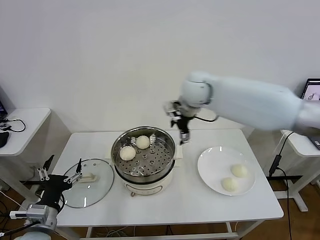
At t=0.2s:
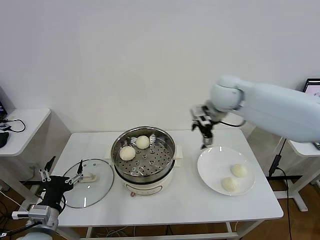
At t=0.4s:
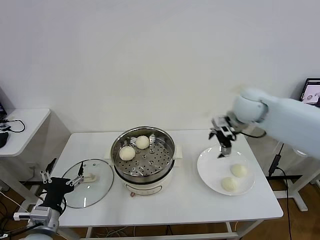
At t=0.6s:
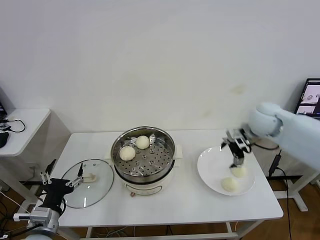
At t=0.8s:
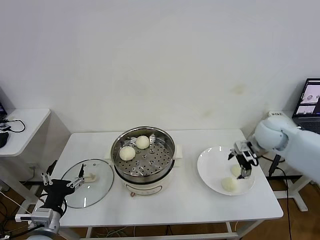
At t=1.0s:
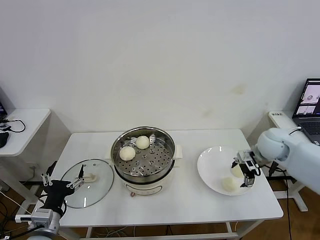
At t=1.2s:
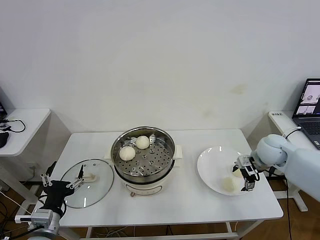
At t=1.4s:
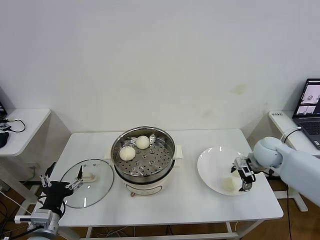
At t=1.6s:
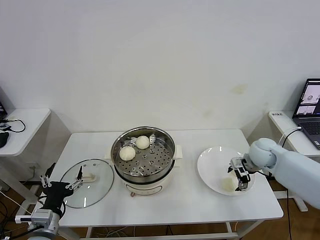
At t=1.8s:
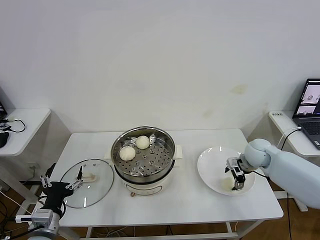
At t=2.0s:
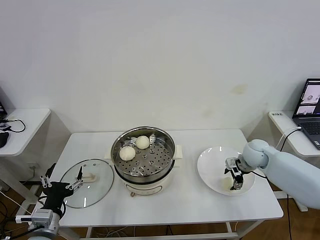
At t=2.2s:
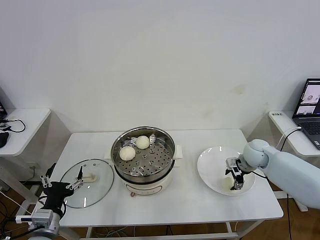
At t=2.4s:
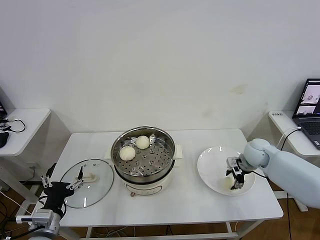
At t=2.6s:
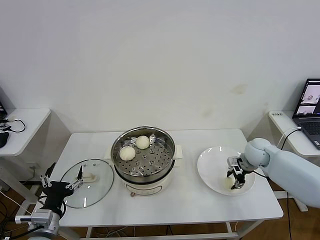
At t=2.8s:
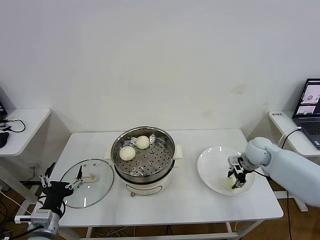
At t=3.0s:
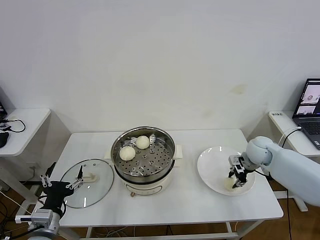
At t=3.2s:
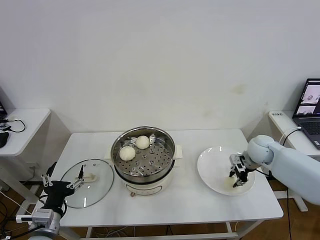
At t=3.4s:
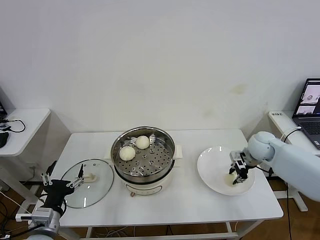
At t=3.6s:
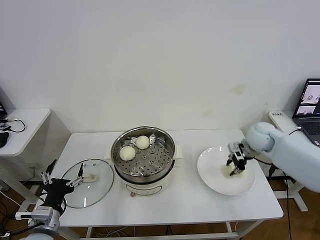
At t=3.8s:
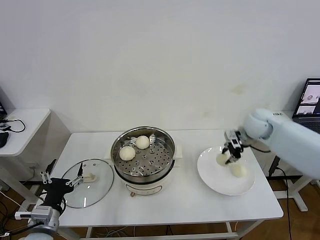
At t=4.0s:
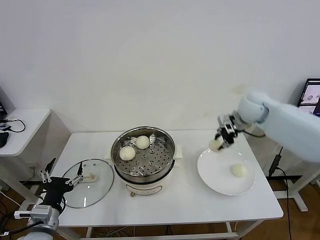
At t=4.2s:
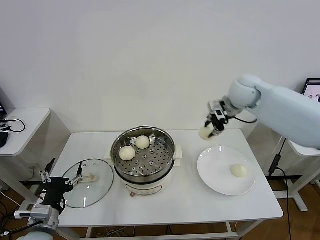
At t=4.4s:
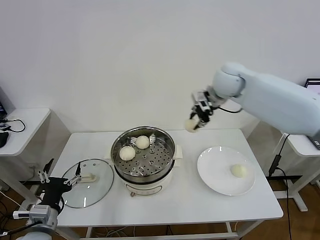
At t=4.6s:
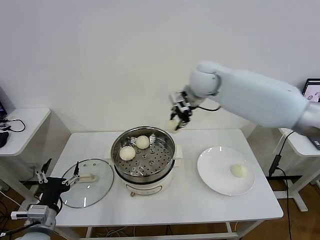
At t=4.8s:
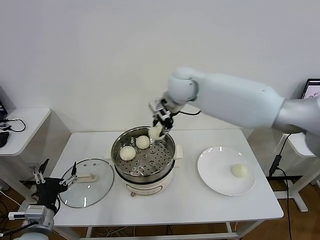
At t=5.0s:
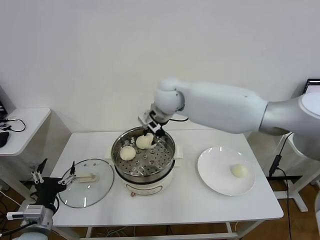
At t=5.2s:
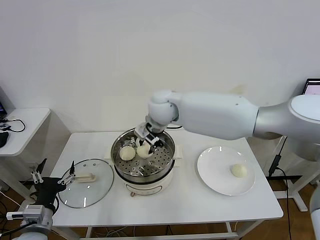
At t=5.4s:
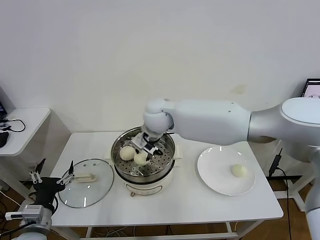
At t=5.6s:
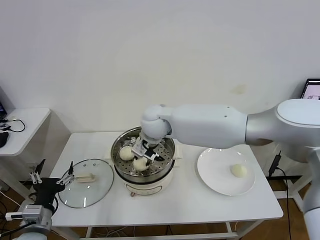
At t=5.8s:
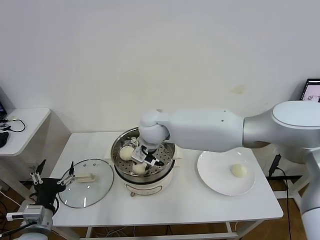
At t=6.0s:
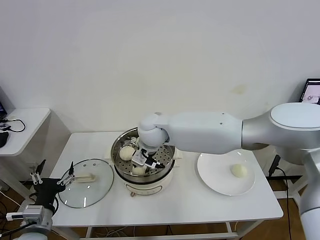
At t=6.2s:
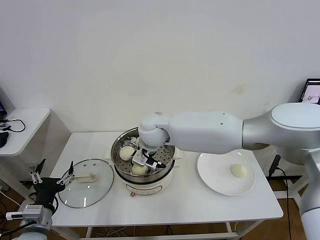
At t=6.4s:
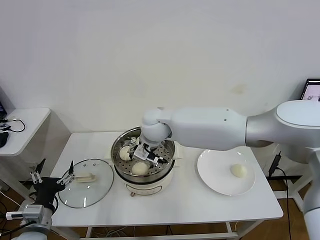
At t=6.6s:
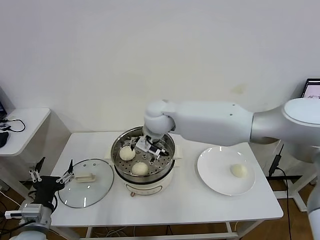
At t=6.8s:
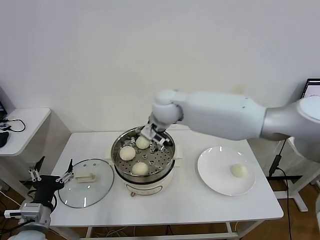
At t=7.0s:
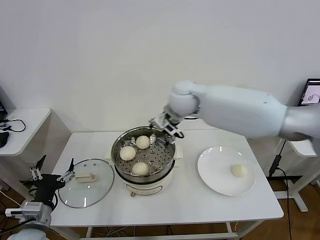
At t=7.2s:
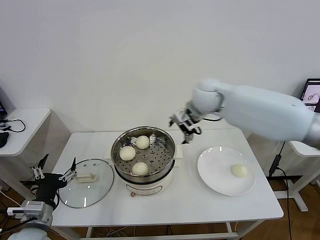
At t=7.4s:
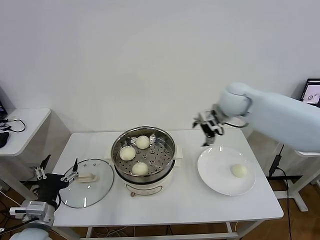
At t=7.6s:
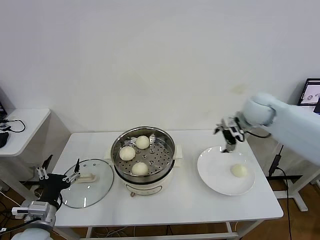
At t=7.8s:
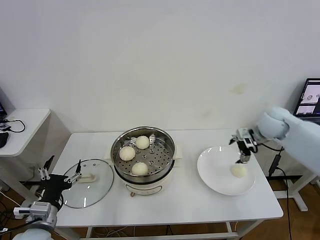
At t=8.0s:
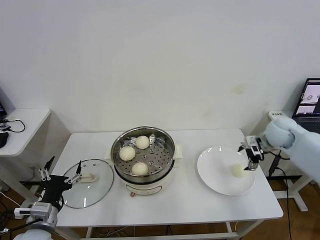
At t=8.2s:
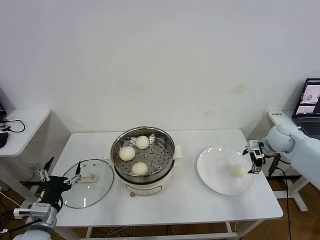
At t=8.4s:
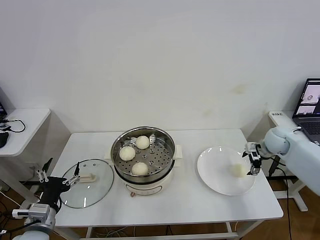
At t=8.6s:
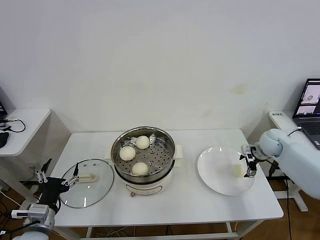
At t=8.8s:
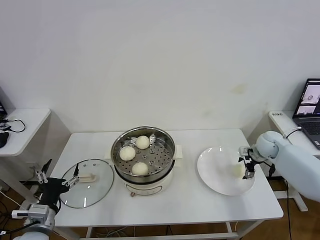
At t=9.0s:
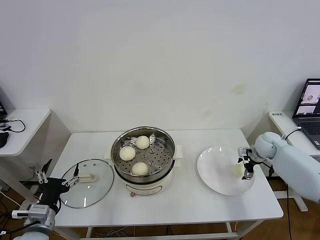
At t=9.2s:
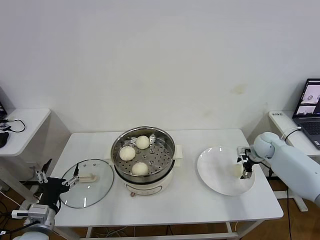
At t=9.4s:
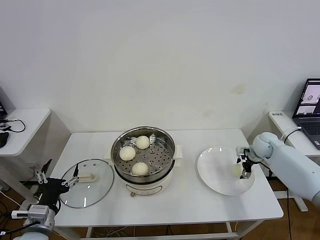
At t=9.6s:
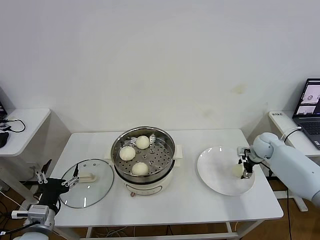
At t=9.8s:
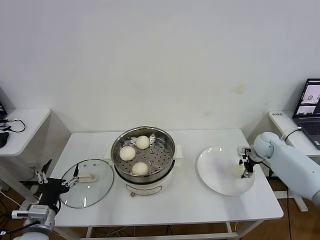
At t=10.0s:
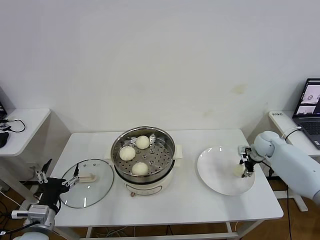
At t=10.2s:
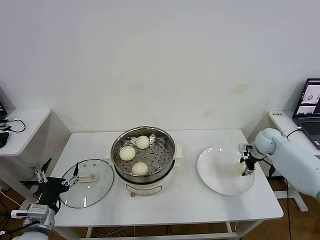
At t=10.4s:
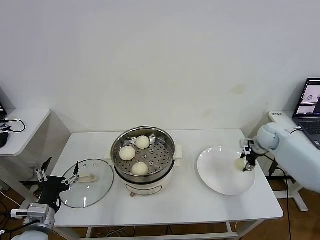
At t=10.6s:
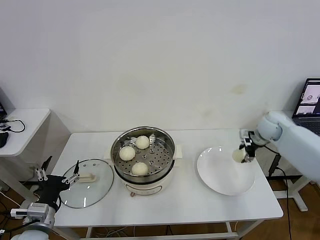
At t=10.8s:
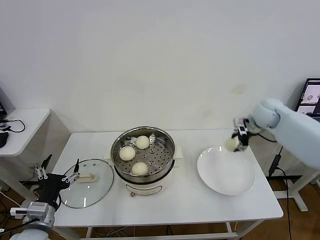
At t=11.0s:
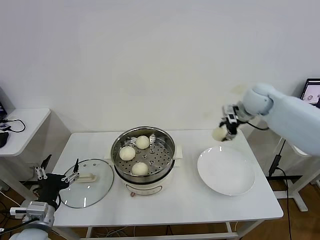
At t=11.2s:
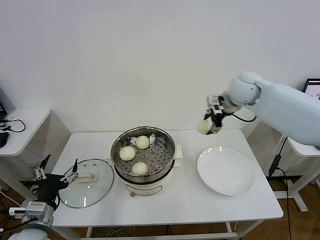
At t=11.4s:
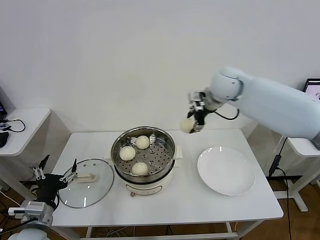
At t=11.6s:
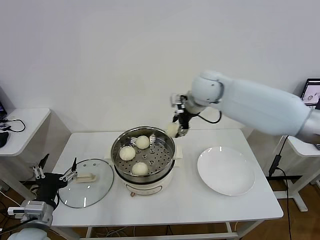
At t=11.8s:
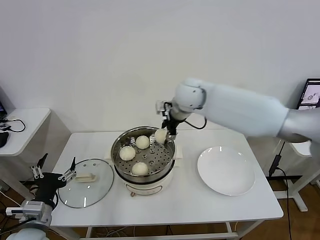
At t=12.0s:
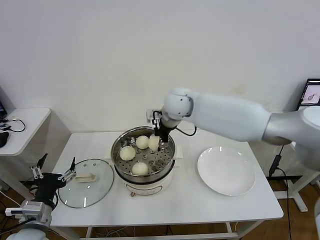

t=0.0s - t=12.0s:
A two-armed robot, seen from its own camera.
Task of the whole recording: take steamed baozi put them in steamer then cover it.
Step, t=0.0s - t=3.0s: Grasp the baozi in the plate with right gripper.
Step, t=3.2s - t=6.2s: Place the baozi on the steamer with right gripper.
Step, t=6.6s - t=9.8s: Grasp the baozi in the plate with right gripper.
t=0.0s - t=1.6s: The right gripper is displaced to the right and downward by approximately 35 cm.
t=1.6s - t=3.0s: The right gripper closes.
t=3.0s - t=4.4s: The right gripper travels upward and to the left by approximately 30 cm.
t=4.4s - t=6.0s: The right gripper moves to the left and downward, some 25 cm.
t=6.0s - t=7.6s: The right gripper goes some 30 cm to the right, and opens.
t=7.6s - t=9.0s: The right gripper heads downward and to the right, covering approximately 20 cm.
t=9.0s - t=10.4s: The right gripper closes its fingers.
t=10.4s - t=12.0s: The right gripper is displaced to the left and upward by some 40 cm.

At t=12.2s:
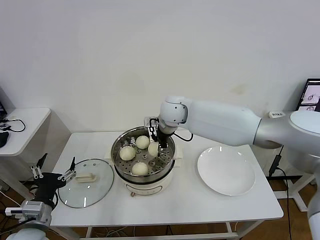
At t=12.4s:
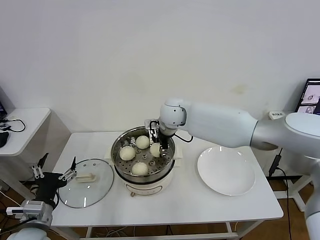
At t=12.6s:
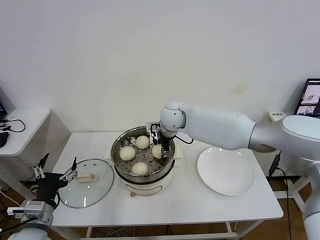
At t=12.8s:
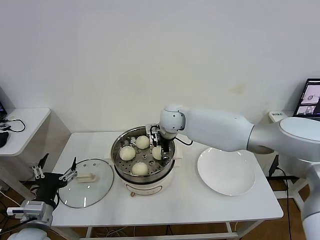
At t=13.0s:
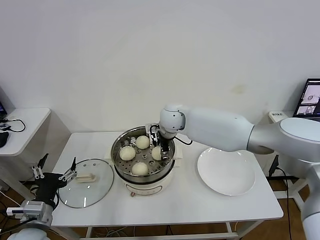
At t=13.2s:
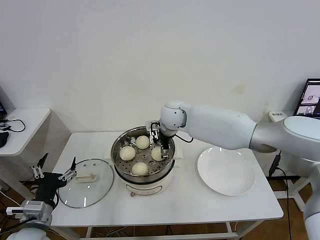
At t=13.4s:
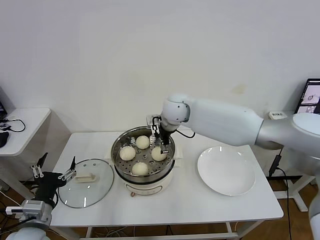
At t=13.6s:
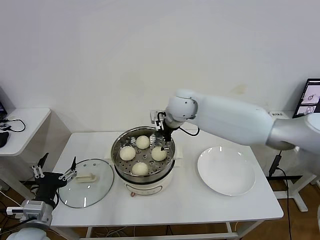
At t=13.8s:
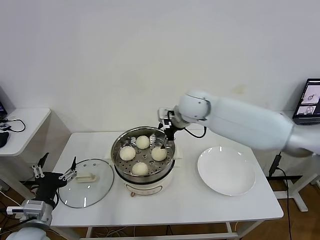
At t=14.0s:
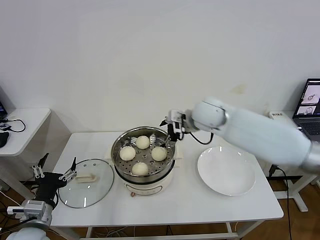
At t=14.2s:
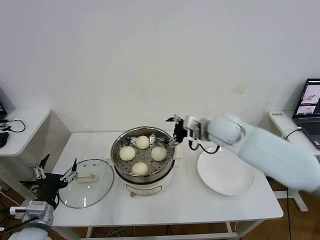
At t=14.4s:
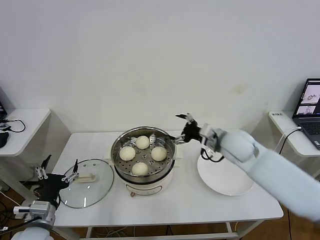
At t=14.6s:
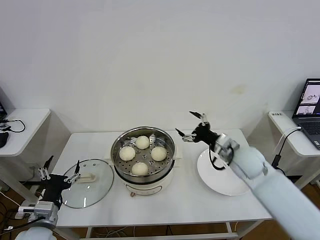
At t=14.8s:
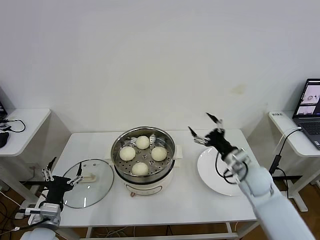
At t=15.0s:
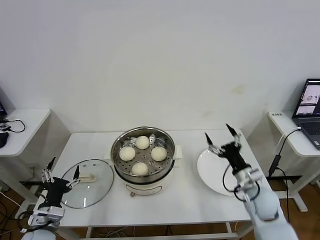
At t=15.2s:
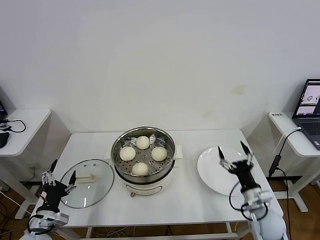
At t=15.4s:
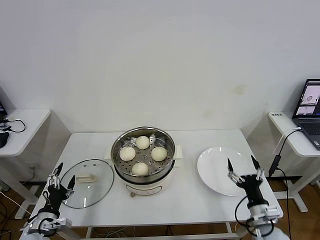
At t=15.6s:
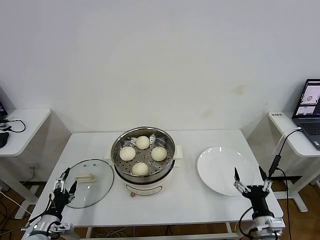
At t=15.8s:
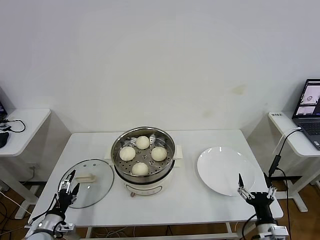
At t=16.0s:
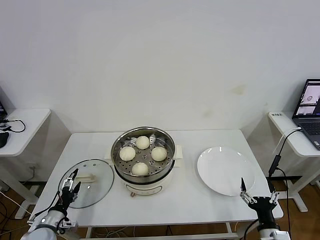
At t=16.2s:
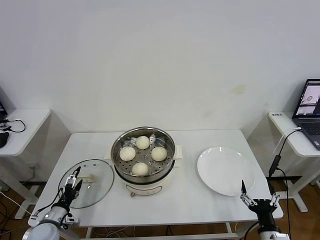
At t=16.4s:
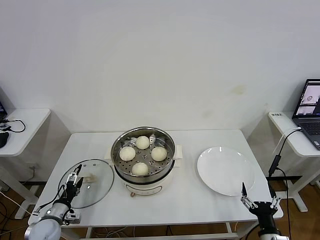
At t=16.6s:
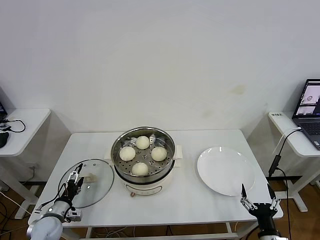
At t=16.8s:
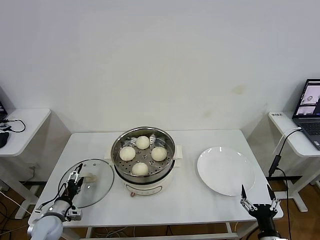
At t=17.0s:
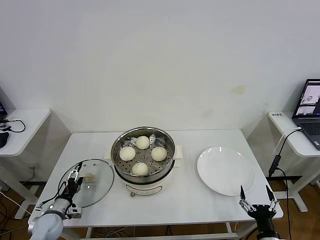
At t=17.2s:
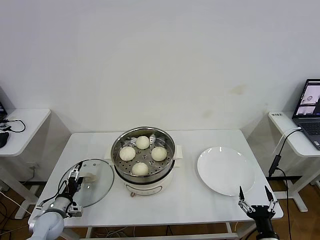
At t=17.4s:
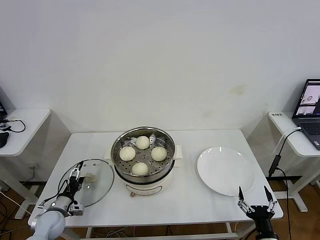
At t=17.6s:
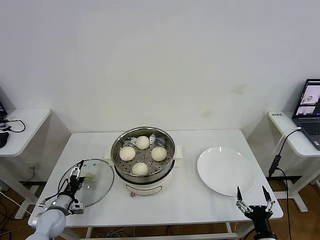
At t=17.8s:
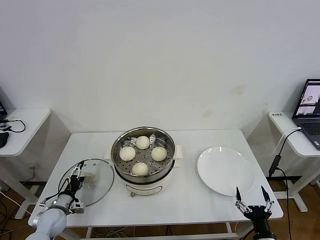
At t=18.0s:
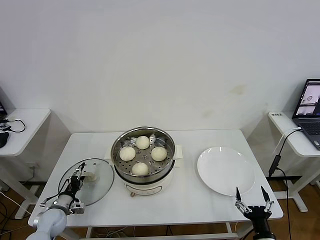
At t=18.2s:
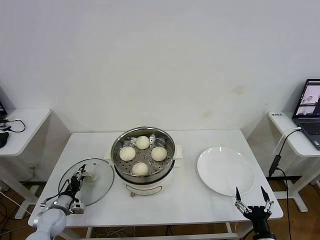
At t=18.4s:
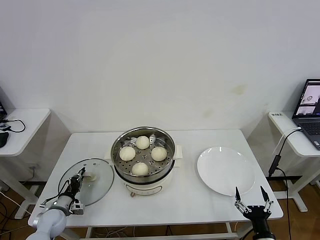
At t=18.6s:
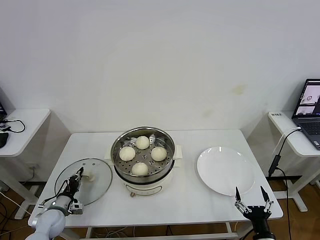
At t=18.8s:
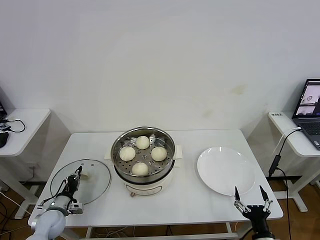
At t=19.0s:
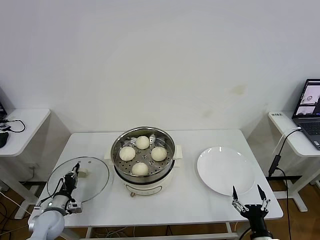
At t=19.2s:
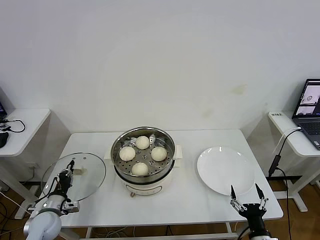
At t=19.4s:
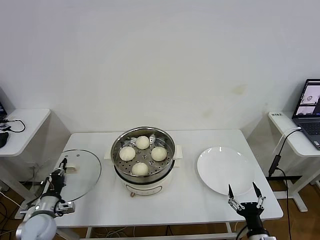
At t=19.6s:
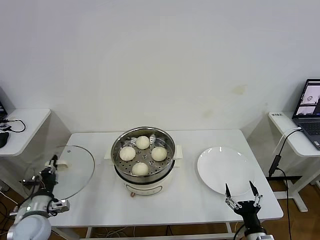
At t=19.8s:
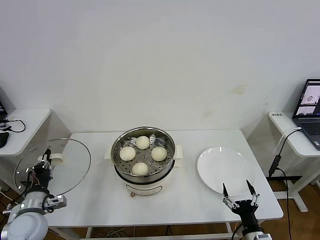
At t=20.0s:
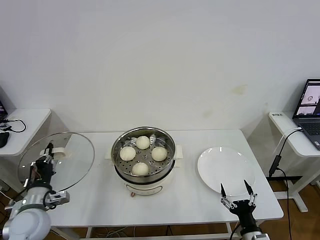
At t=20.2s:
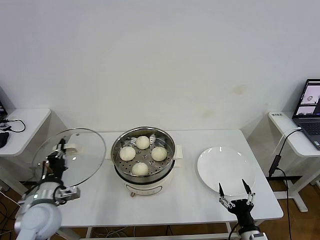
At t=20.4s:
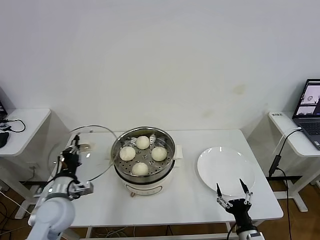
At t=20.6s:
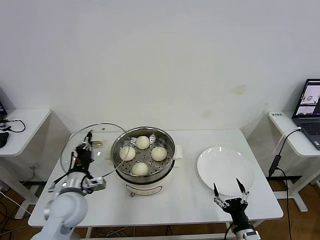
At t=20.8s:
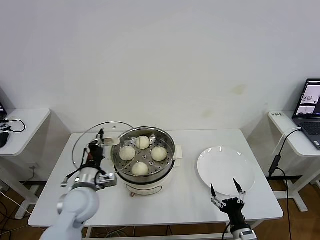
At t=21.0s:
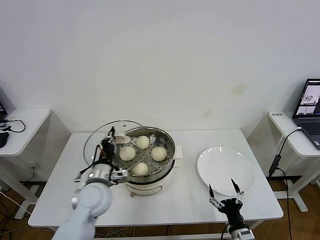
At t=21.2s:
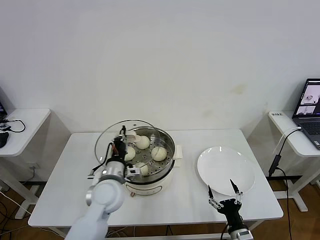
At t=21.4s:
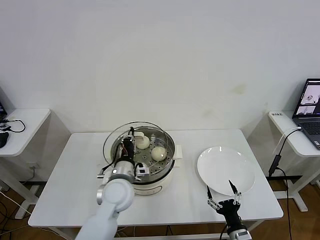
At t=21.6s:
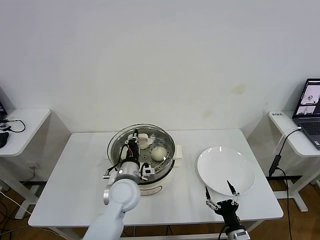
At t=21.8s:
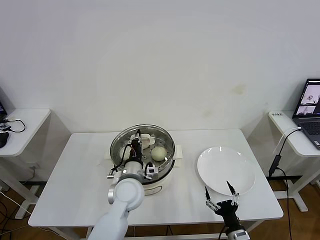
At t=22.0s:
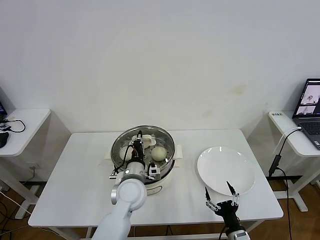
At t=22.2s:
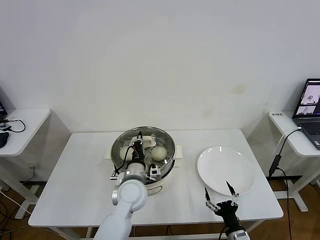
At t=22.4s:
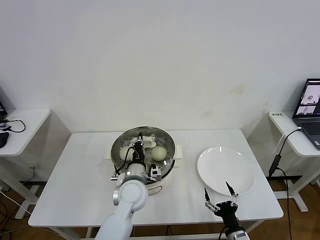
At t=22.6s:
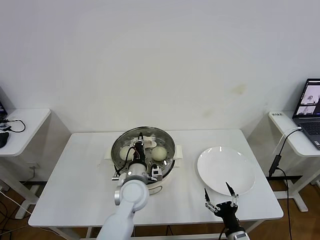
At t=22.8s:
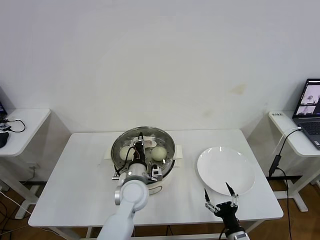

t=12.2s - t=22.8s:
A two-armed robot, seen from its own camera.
Task of the whole recording: take steamed baozi put them in steamer then cover it.
Step, t=13.6s - t=18.8s: Grasp the pot lid with left gripper.
t=12.2s - t=13.8s: The right gripper changes place by approximately 5 cm, and opens up.
t=13.8s - t=15.2s: The right gripper is displaced downward, backward and to the right by some 40 cm. The left gripper shifts roughly 10 cm downward.
t=15.2s - t=16.8s: The left gripper is displaced downward and forward by about 10 cm. Meanwhile the right gripper shifts approximately 15 cm backward.
t=16.8s - t=18.2s: The left gripper closes.
t=18.2s - t=19.8s: The left gripper travels upward and backward by some 15 cm, and closes up.
t=19.8s - t=21.2s: The left gripper heads to the right, covering about 20 cm.
t=21.2s - t=22.8s: The left gripper shifts roughly 10 cm to the right.
